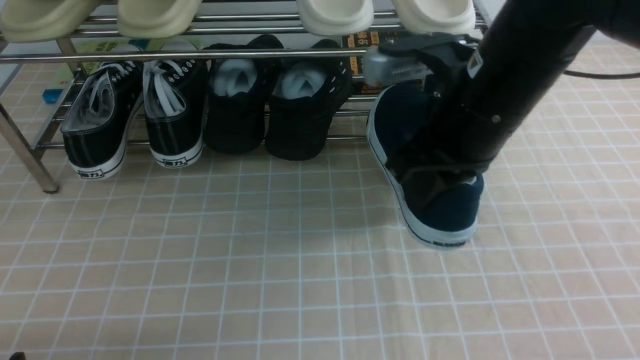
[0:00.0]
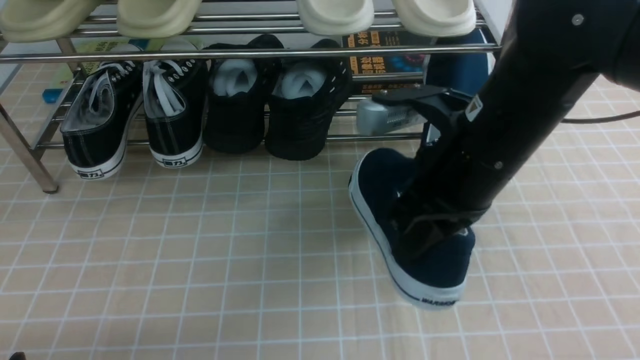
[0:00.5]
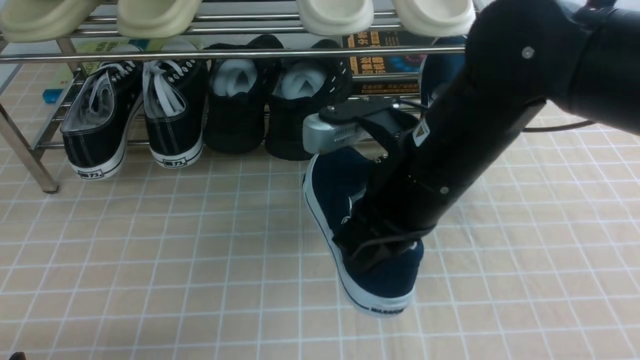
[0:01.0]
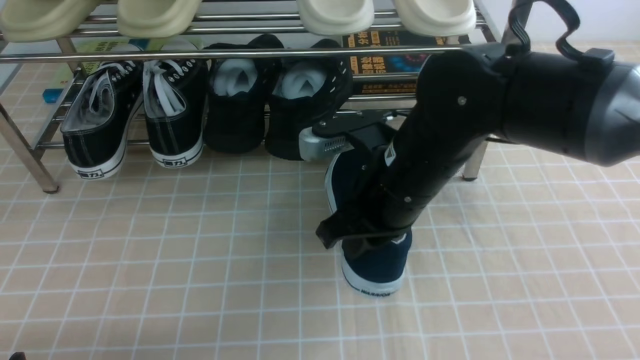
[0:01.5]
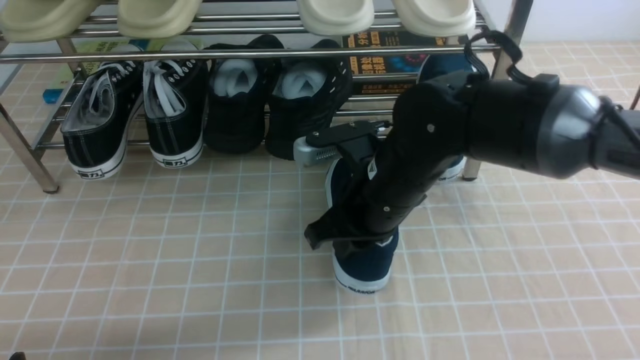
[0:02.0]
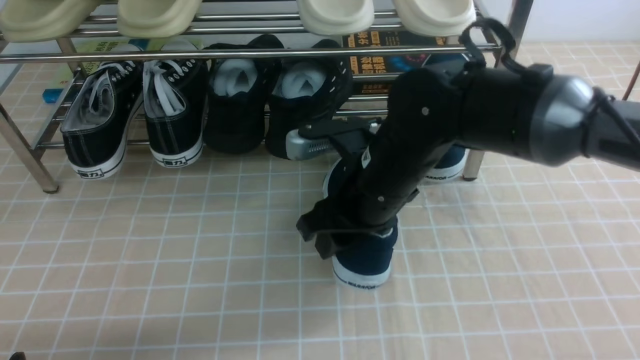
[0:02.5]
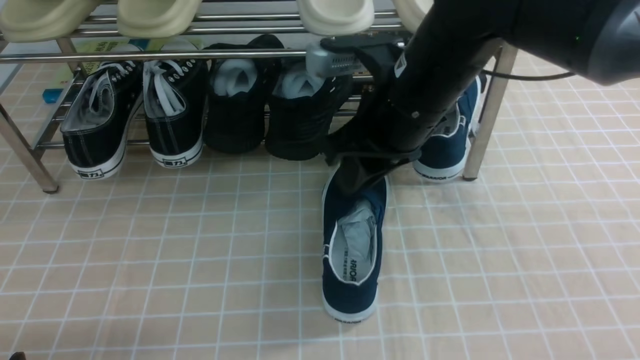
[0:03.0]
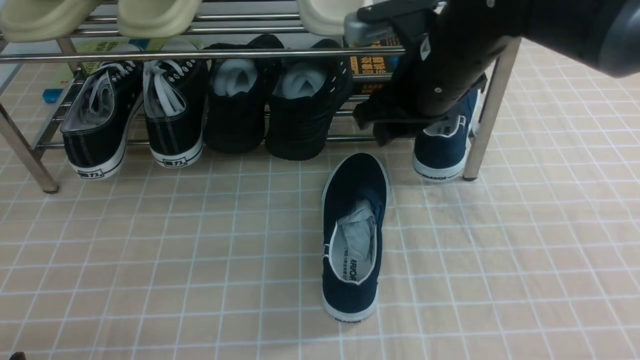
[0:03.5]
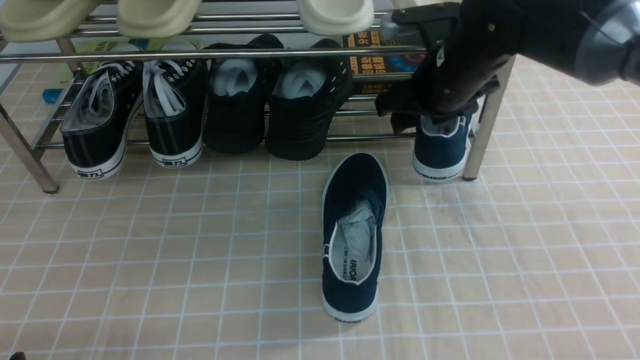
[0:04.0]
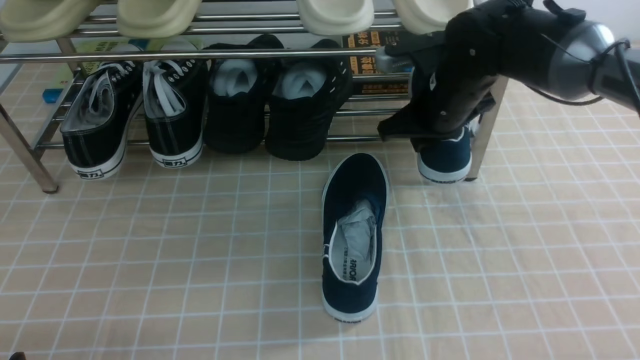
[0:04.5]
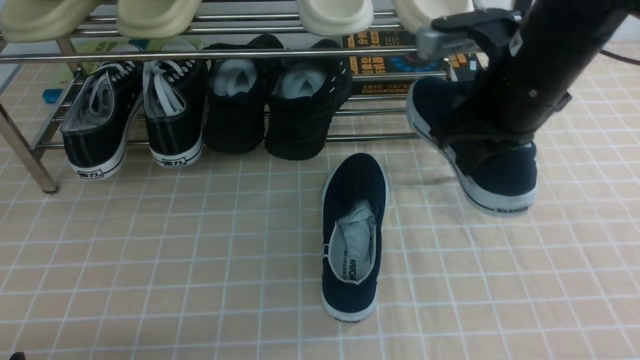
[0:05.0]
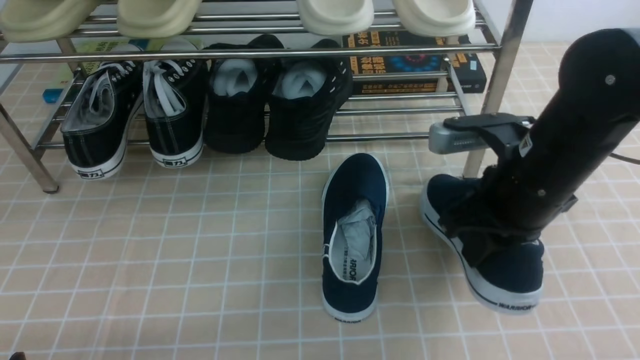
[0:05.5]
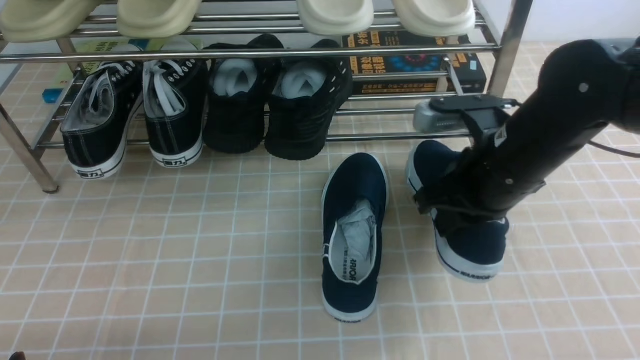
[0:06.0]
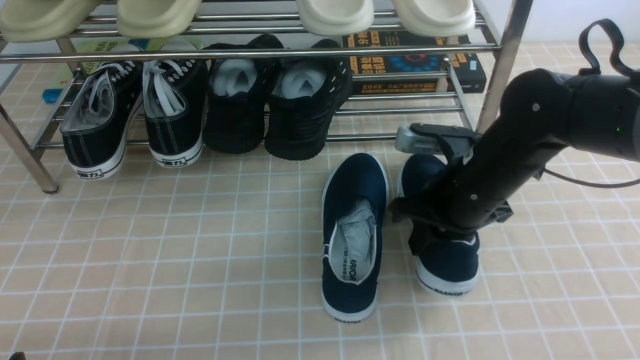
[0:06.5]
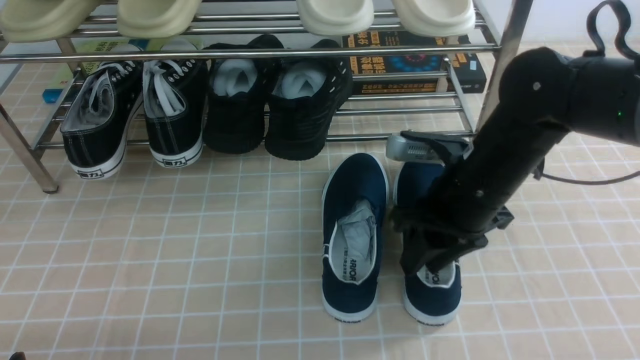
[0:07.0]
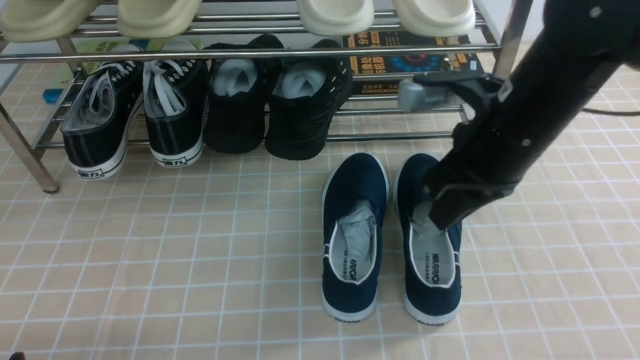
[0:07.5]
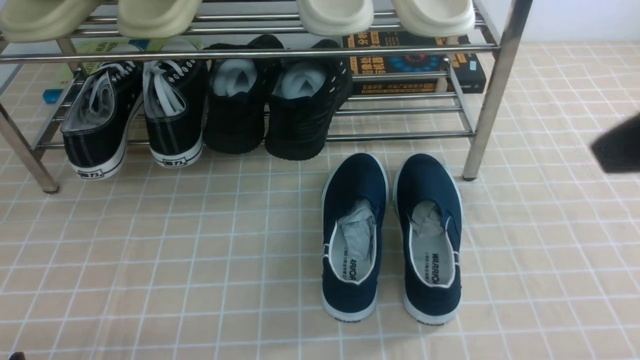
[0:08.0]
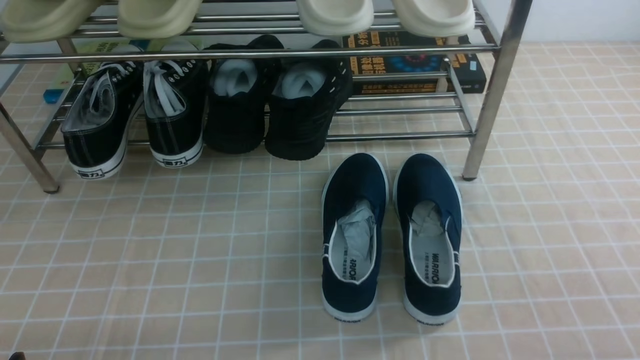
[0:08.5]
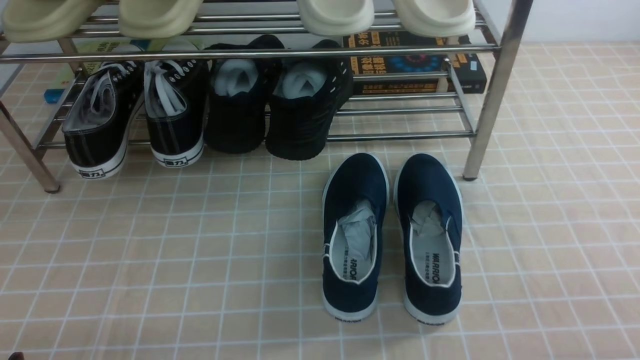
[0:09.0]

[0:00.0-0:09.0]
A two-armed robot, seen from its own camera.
Step, 0:00.0 to 0:02.5: use the right arm to take out the clamped shoe from the shoe rack and put it down.
Step, 0:03.0 to 0:04.0: use the right arm to clamp a shoe on the right side of the shoe rack.
Step, 0:04.5 to 0:07.0: use the right arm to take out the clamped shoe from the shoe rack and put it down.
0:00.0 to 0:02.0: The right gripper goes some 10 cm downward and to the left.
0:02.0 to 0:04.5: The right gripper shifts about 15 cm forward and to the right, and opens and closes again.
0:04.5 to 0:07.0: The right gripper heads backward, covering approximately 10 cm, and closes, then opens again.
0:07.0 to 0:09.0: The right gripper travels backward and to the right by some 30 cm, and closes its fingers.

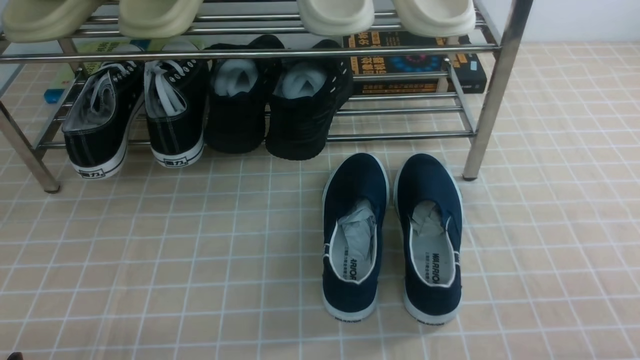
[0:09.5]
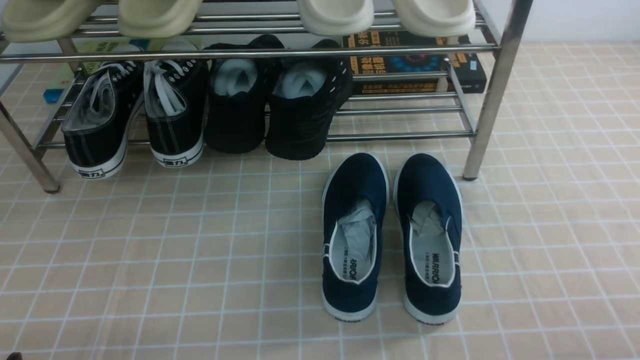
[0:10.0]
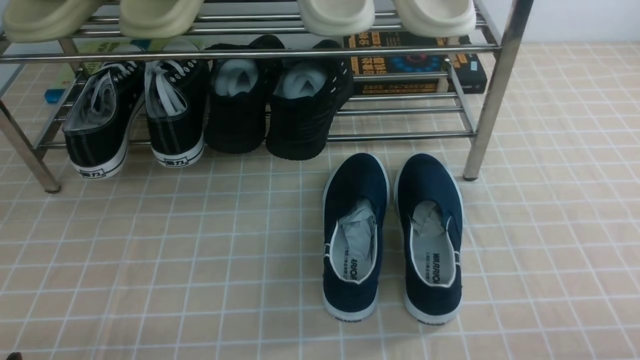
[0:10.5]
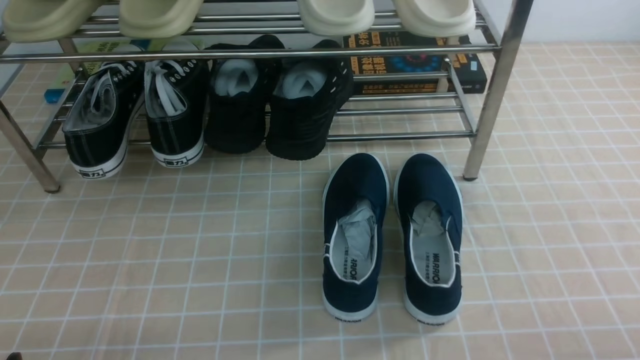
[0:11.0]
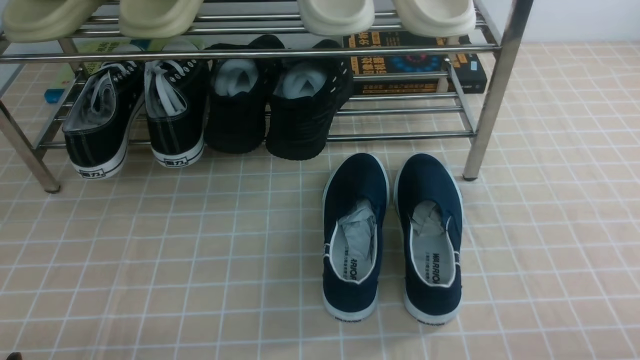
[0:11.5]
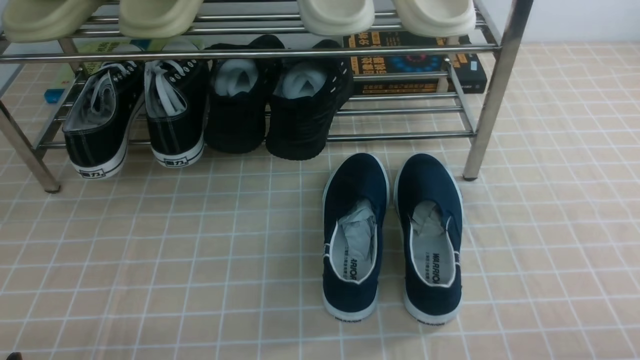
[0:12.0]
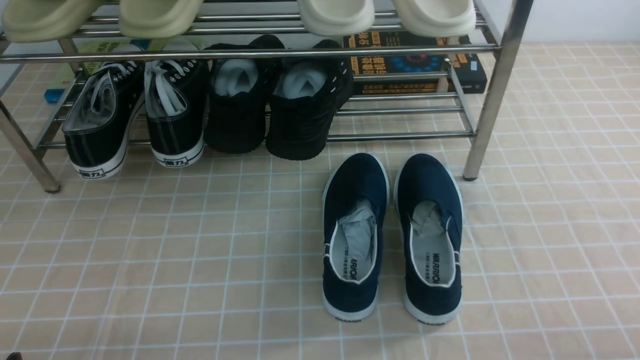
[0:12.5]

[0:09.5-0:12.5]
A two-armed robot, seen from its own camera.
0:11.0 to 0:12.5: Both grippers stay about where they are.
